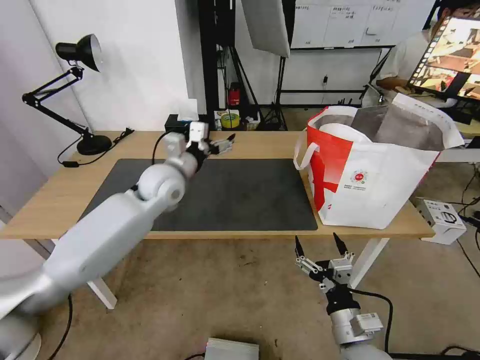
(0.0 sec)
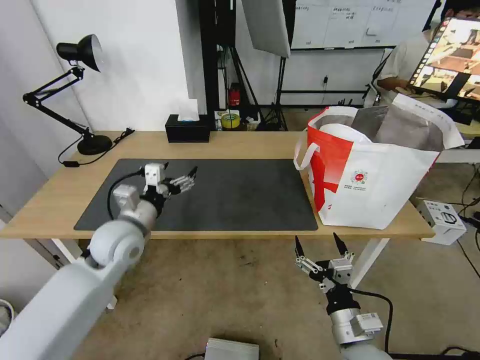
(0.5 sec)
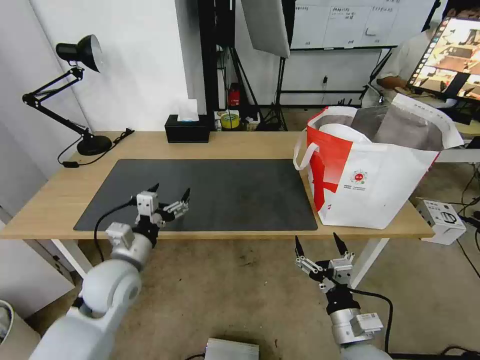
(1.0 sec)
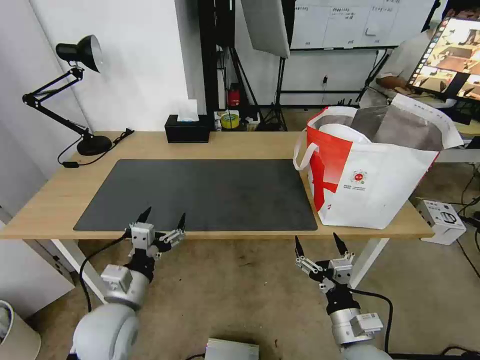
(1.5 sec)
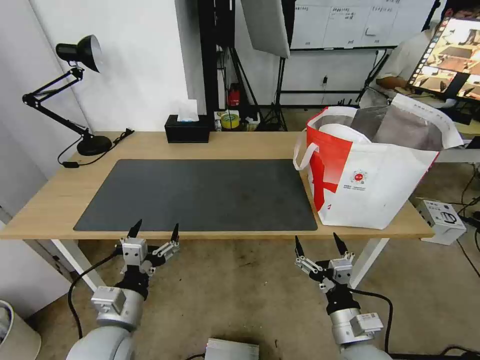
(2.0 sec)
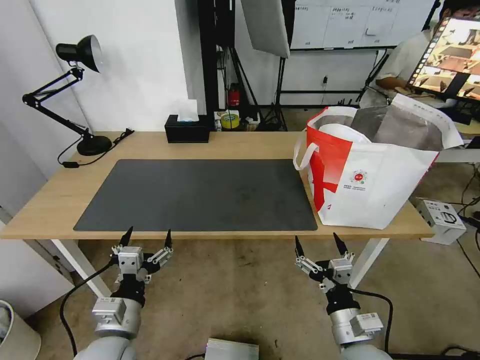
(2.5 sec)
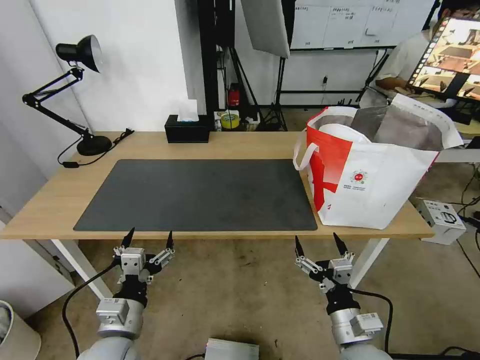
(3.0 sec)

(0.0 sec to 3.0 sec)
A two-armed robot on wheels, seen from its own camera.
Task of the whole recording: Pick up the trash from the table and place it into the takeout bag.
0.0 sec - 1.5 sec: The left gripper moves backward and downward, about 25 cm.
1.5 sec - 3.0 sec: The left gripper goes some 5 cm backward.

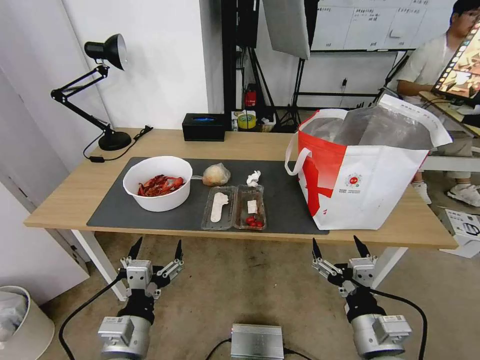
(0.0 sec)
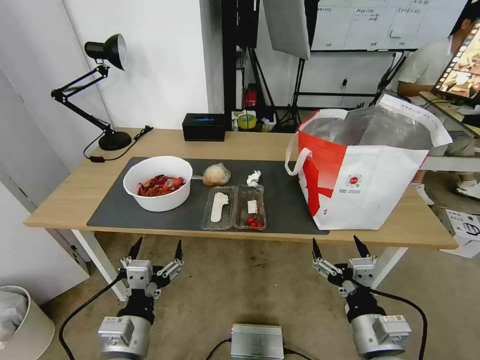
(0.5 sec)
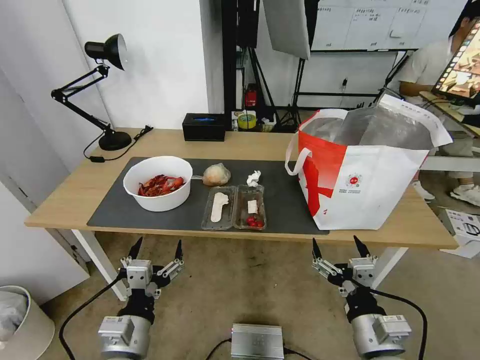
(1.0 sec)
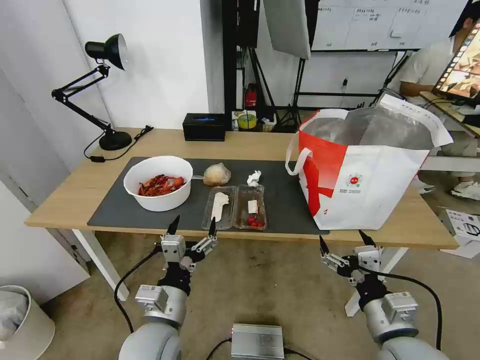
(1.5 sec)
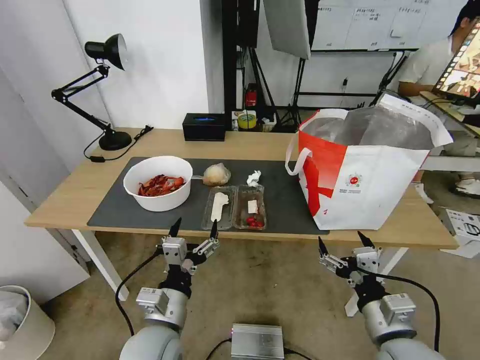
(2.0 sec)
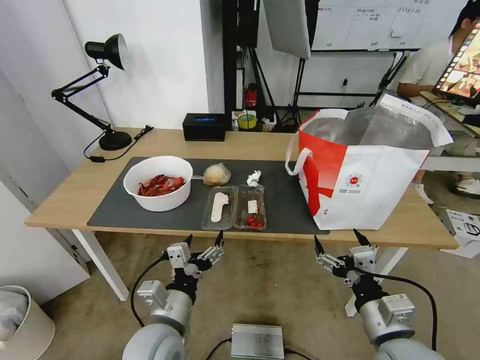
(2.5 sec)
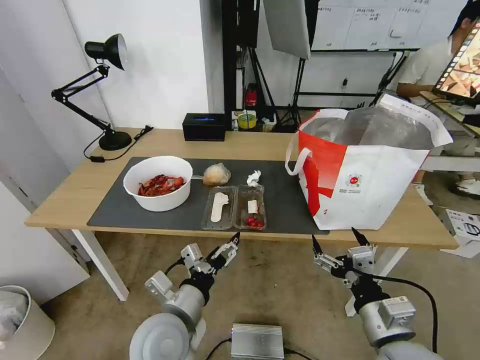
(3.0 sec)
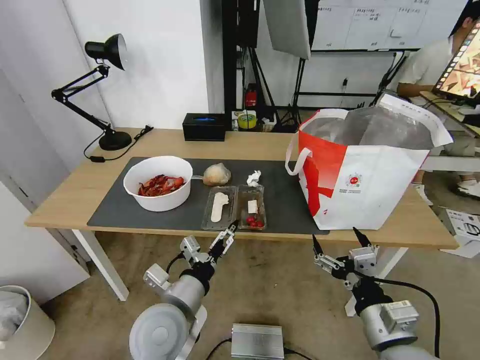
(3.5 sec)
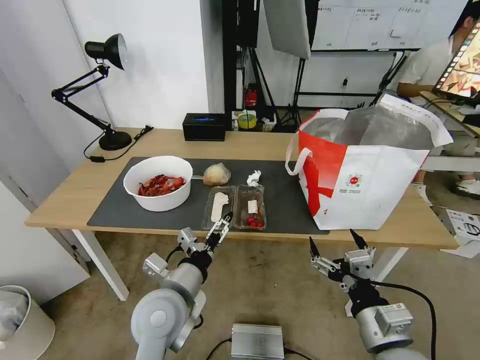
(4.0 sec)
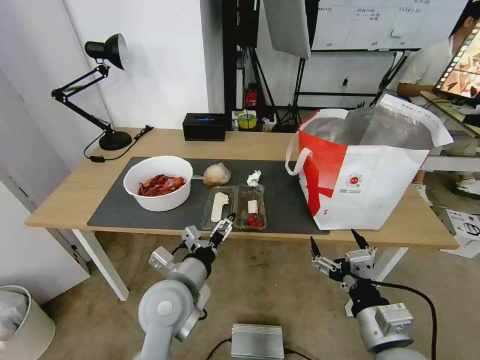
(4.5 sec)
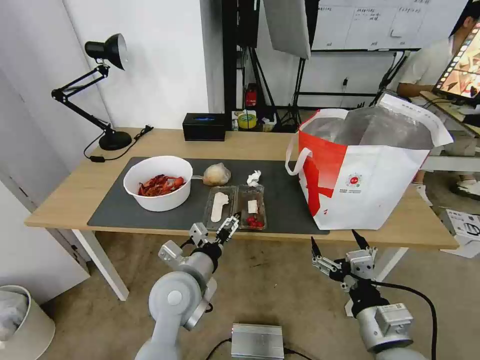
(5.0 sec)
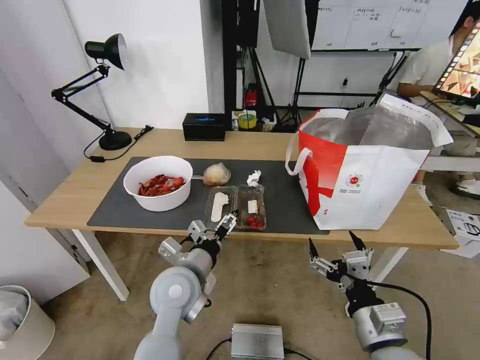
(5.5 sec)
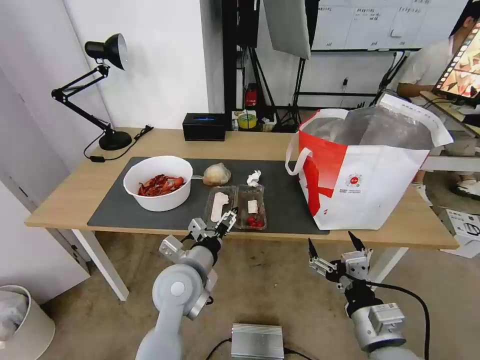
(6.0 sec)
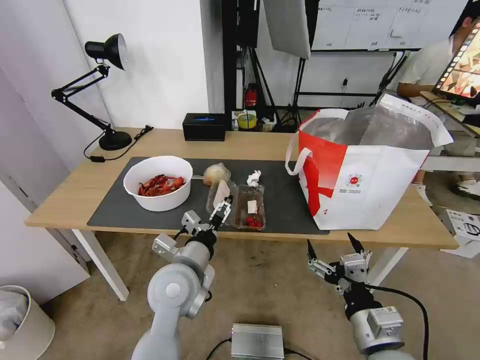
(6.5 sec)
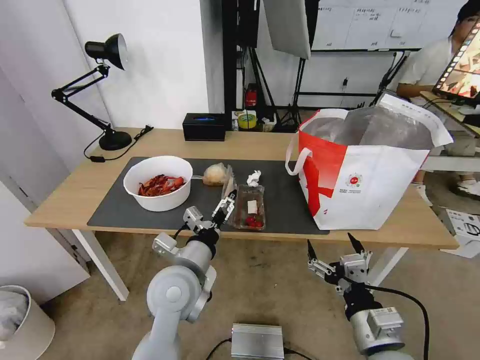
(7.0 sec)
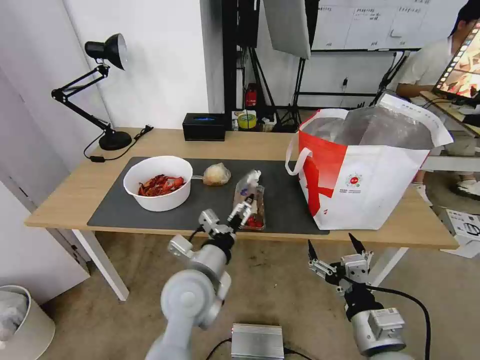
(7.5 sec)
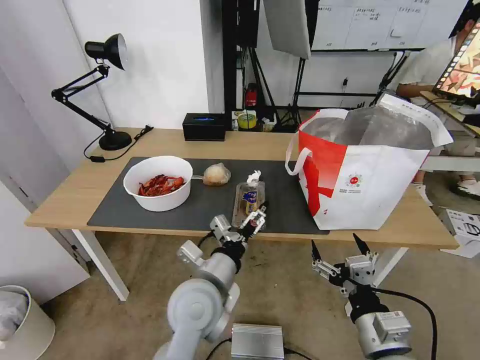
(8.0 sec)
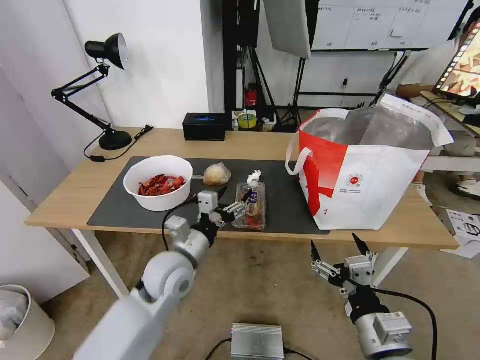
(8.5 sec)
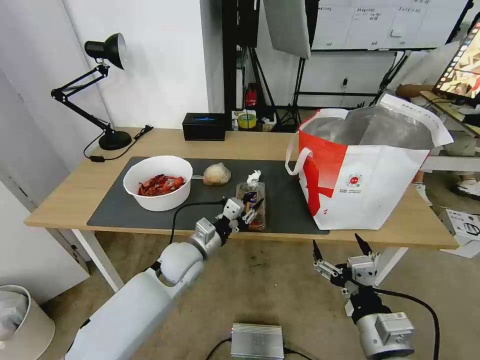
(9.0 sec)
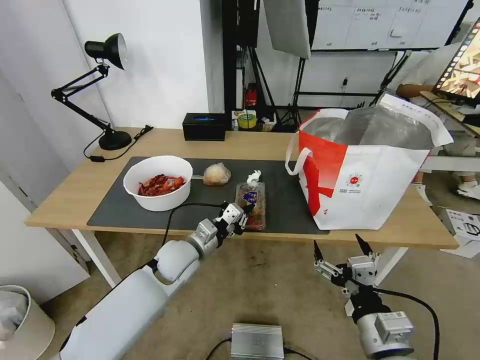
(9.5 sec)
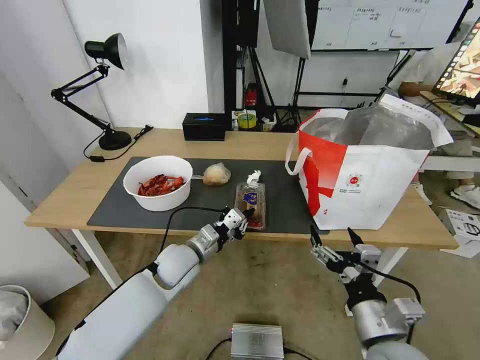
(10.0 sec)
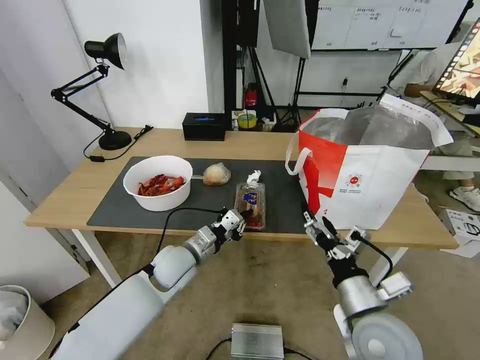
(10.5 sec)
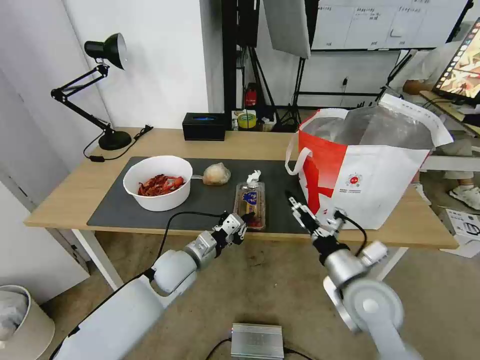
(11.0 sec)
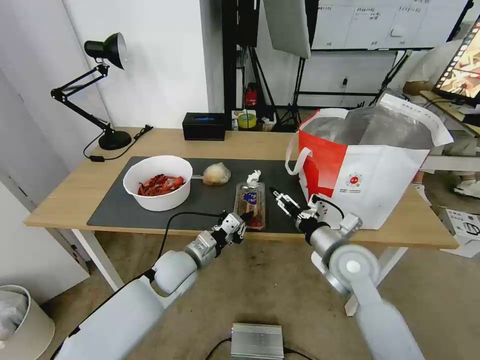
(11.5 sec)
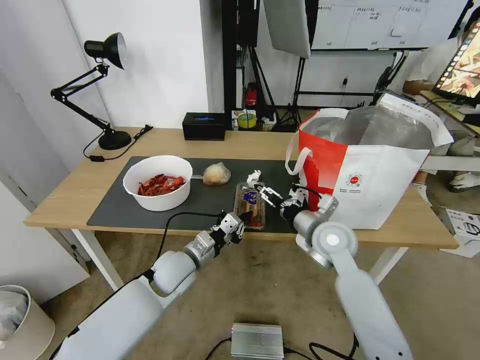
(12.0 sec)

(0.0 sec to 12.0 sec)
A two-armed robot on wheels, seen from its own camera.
Task of the whole recording: Pick up the trash from the table and place it into the takeout bag.
2.0 sec - 4.0 sec: The left gripper shifts roughly 5 cm forward.
4.0 sec - 6.0 sec: The left gripper is displaced forward by some 5 cm.
6.0 sec - 8.0 sec: The left gripper ends up some 5 cm from where it was.
8.0 sec - 10.0 sec: The left gripper moves forward, to the left and downward, roughly 15 cm, and closes.
10.0 sec - 12.0 sec: The right gripper goes some 25 cm forward.

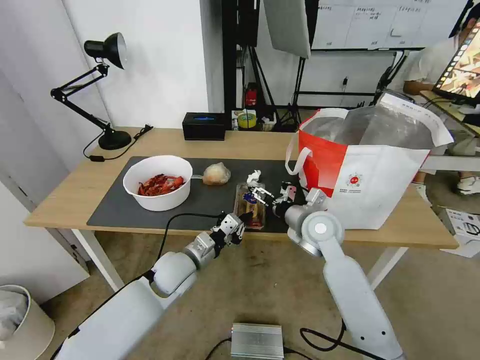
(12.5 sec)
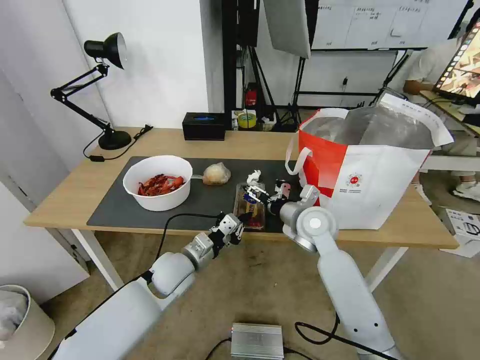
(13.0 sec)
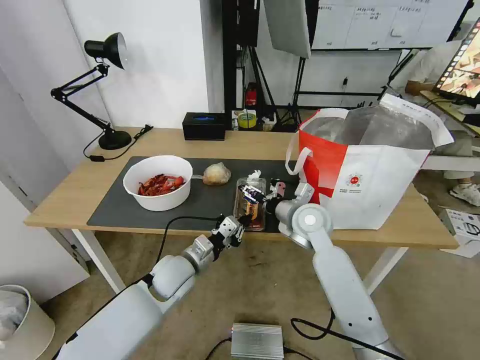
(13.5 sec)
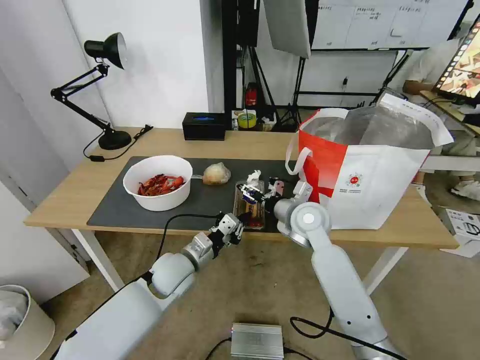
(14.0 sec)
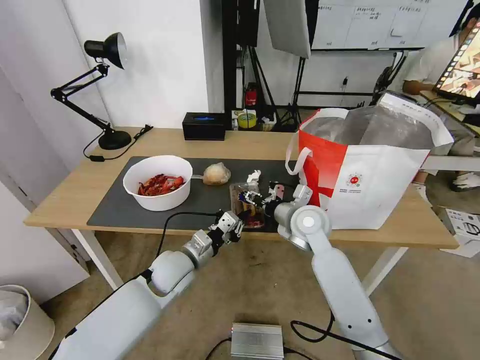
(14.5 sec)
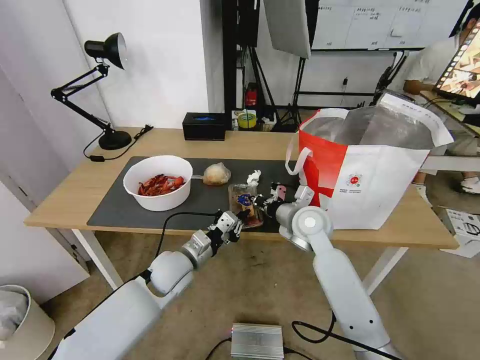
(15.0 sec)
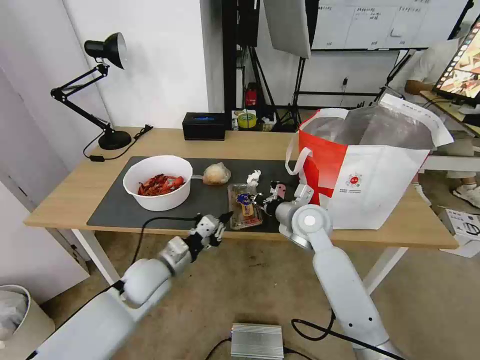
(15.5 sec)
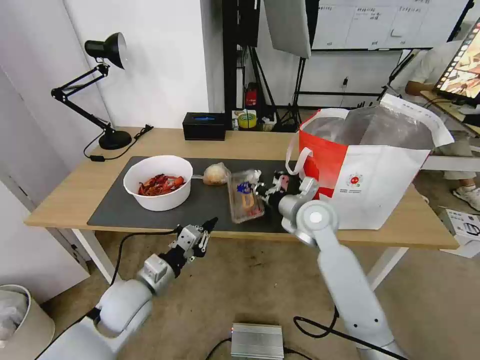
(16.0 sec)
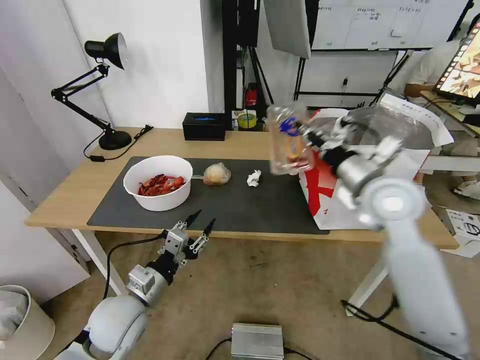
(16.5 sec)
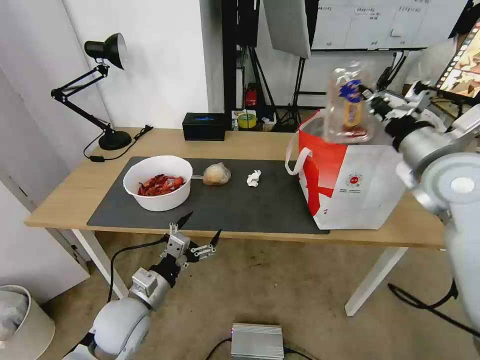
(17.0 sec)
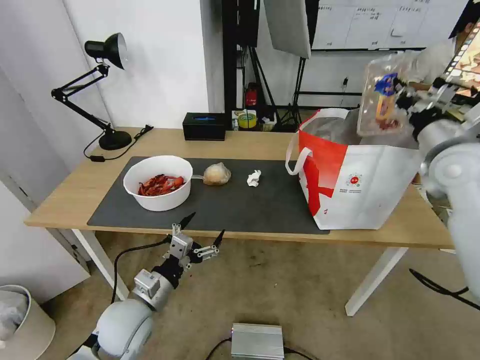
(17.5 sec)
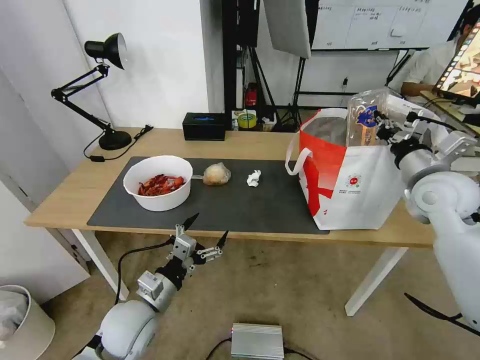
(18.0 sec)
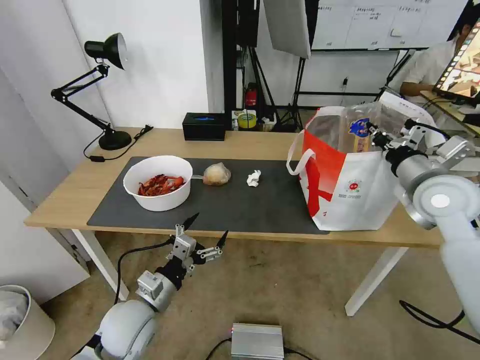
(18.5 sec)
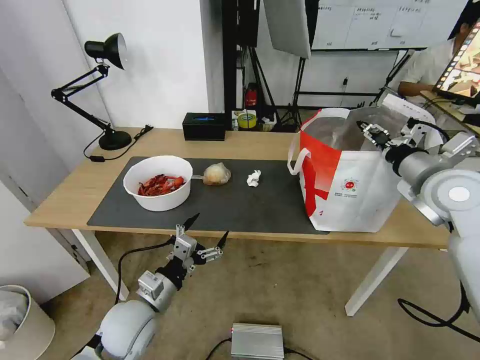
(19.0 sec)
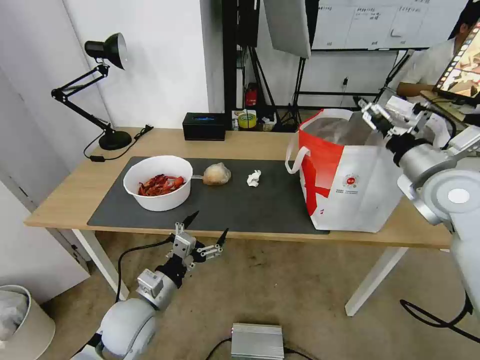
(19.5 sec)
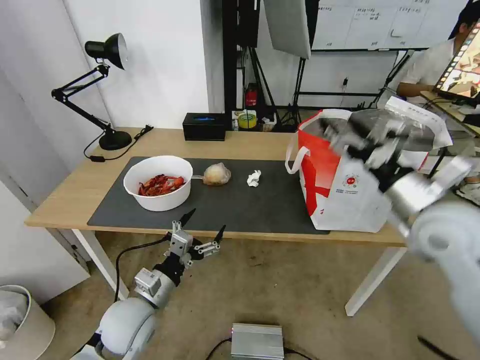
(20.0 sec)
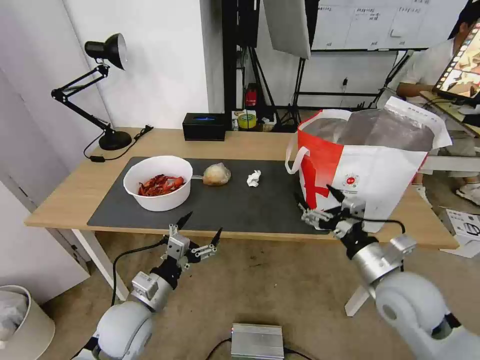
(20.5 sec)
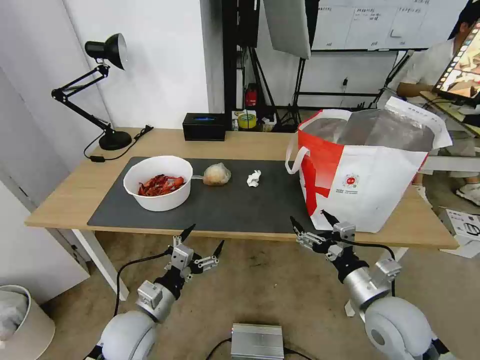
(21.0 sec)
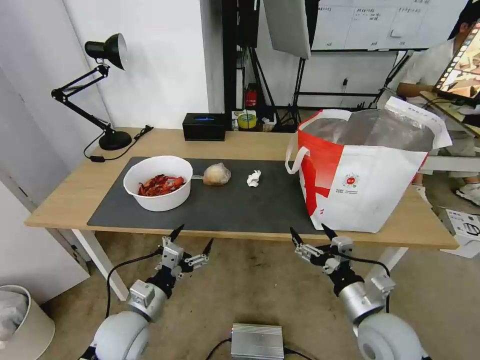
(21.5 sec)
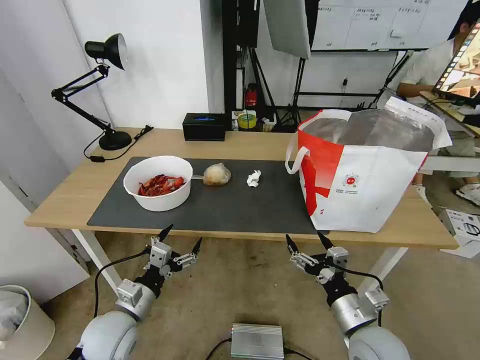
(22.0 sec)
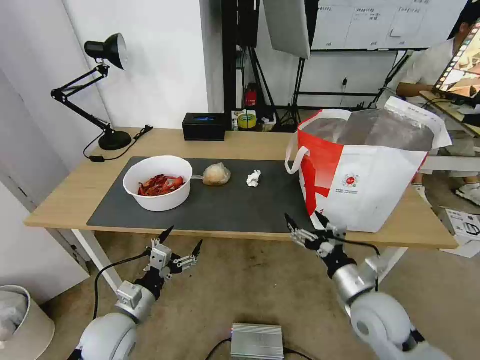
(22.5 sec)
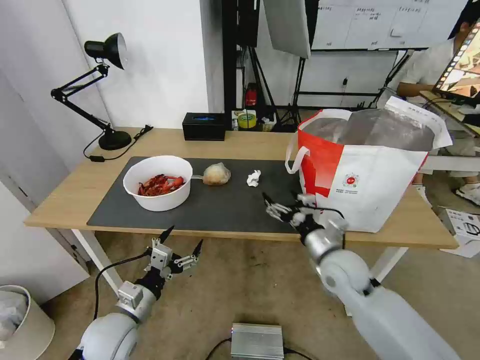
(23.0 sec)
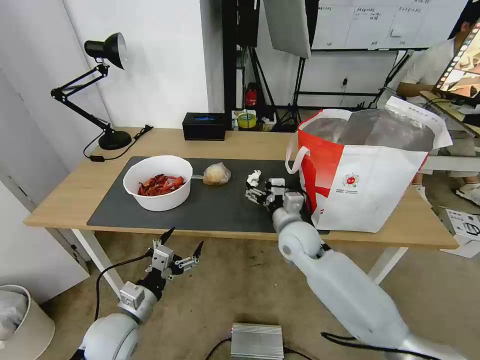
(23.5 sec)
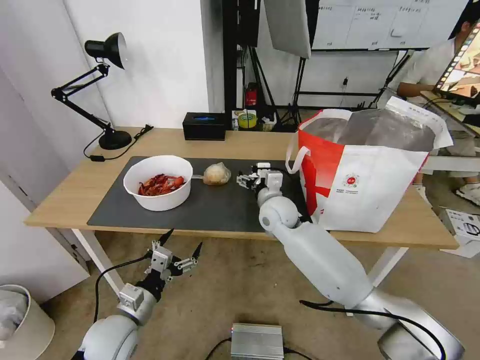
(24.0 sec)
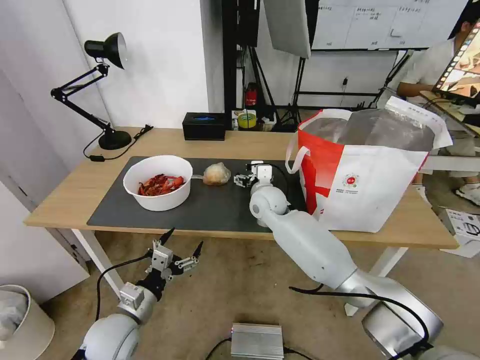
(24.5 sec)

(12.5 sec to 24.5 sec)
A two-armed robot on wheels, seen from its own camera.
Task of the whole recording: Pick up the trash from the table and place it into the takeout bag.
12.5 sec - 14.5 sec: The right gripper closes up.
14.5 sec - 16.5 sec: The right gripper heads upward and to the right, covering roughly 15 cm, and closes up, while the left gripper moves backward and to the left, approximately 15 cm, and opens.
16.5 sec - 18.5 sec: The right gripper moves to the right, roughly 10 cm, while the left gripper opens its fingers.
18.5 sec - 20.5 sec: The right gripper travels backward, downward and to the left by some 20 cm, and opens.
20.5 sec - 22.5 sec: The right gripper goes some 5 cm downward.
22.5 sec - 24.5 sec: The right gripper is displaced forward and to the left by about 35 cm.
